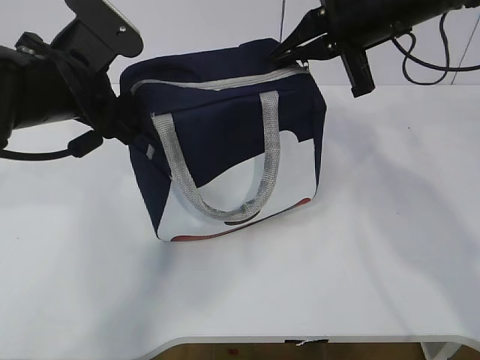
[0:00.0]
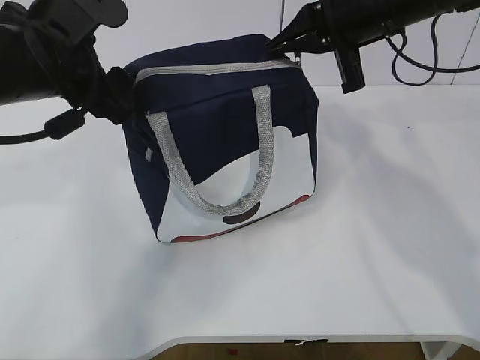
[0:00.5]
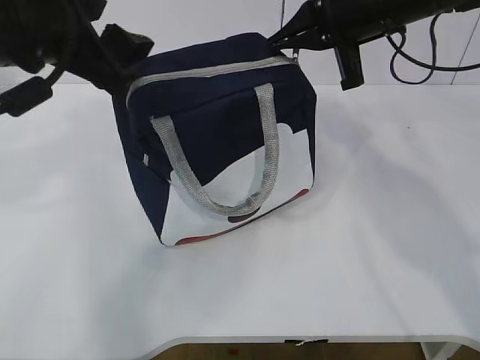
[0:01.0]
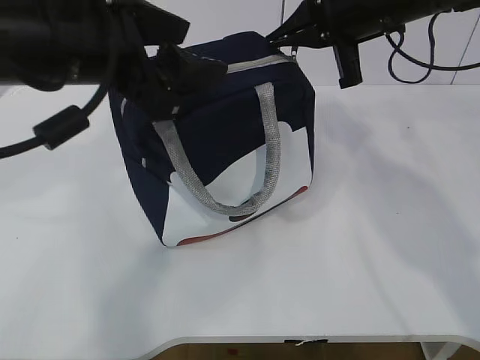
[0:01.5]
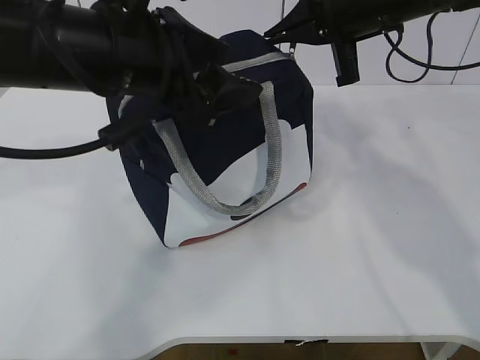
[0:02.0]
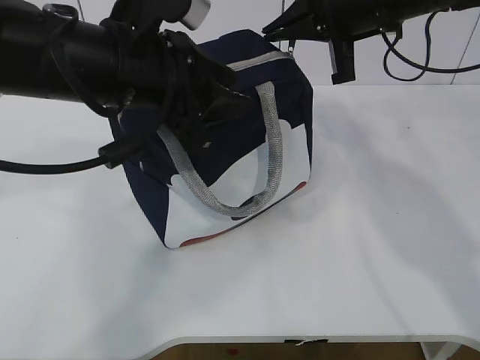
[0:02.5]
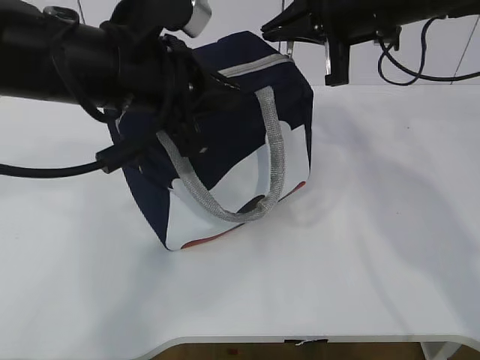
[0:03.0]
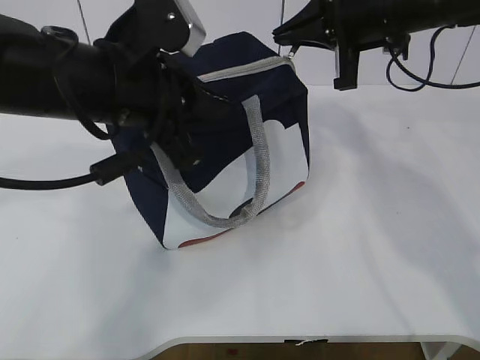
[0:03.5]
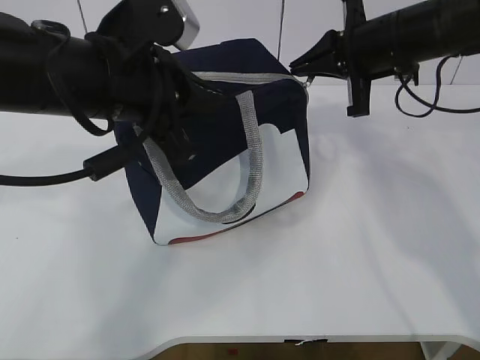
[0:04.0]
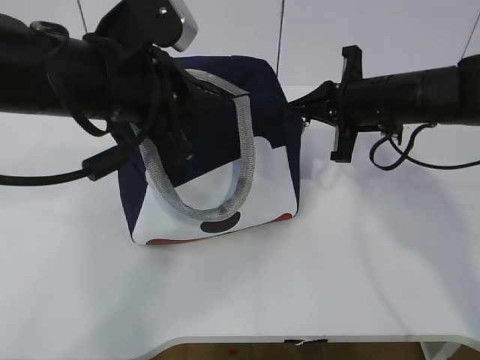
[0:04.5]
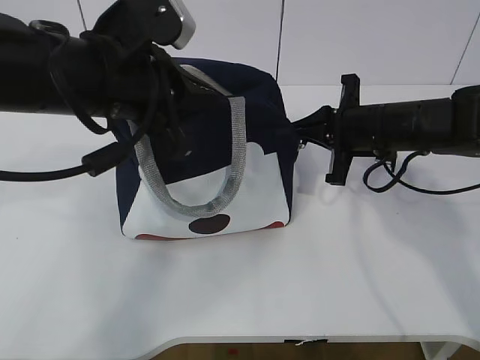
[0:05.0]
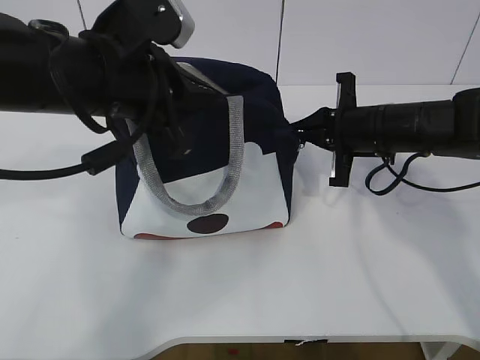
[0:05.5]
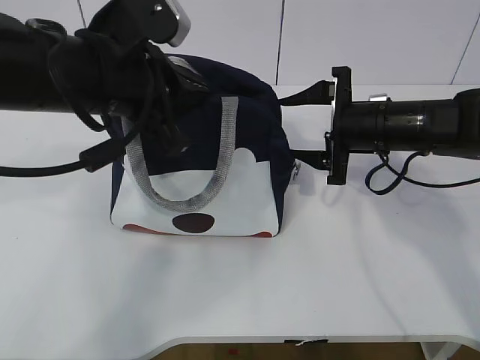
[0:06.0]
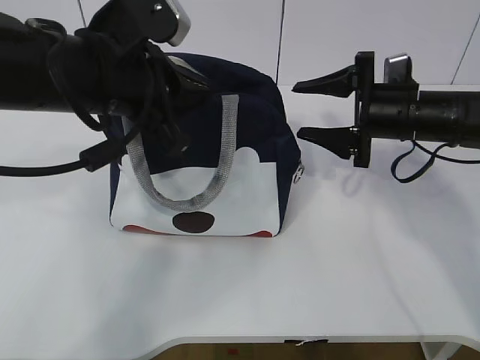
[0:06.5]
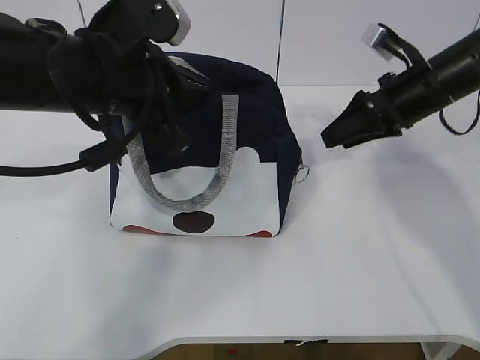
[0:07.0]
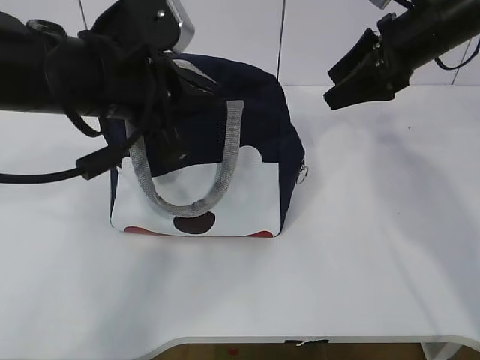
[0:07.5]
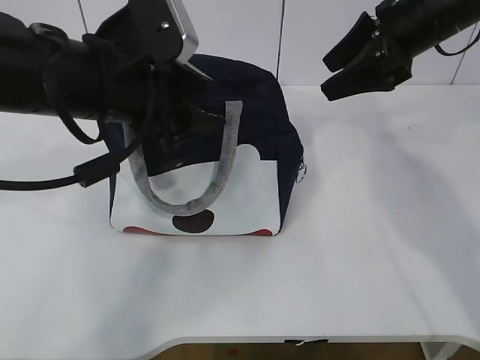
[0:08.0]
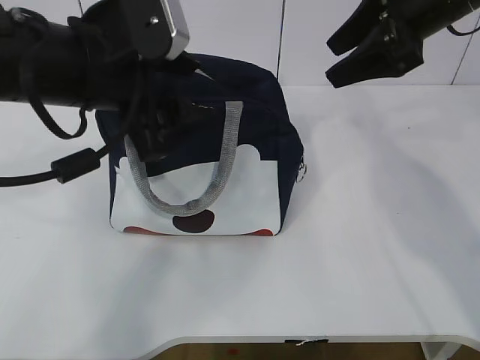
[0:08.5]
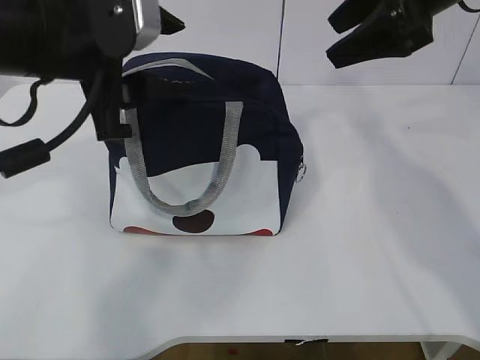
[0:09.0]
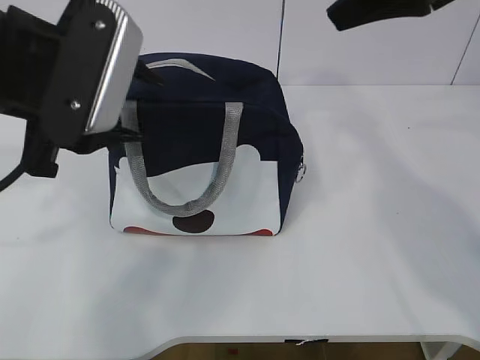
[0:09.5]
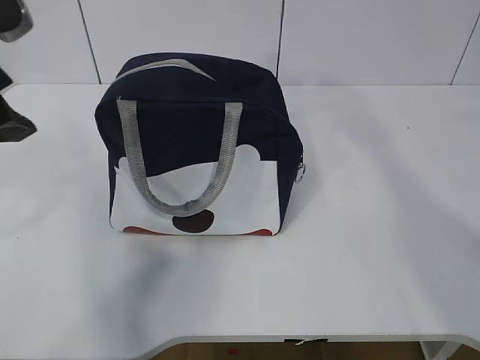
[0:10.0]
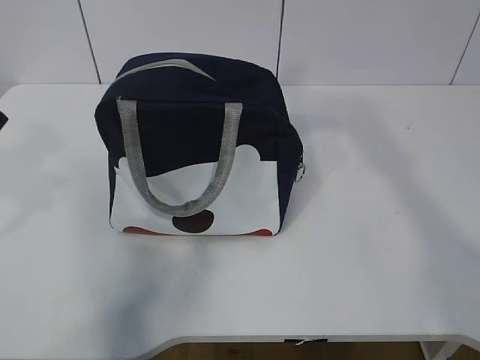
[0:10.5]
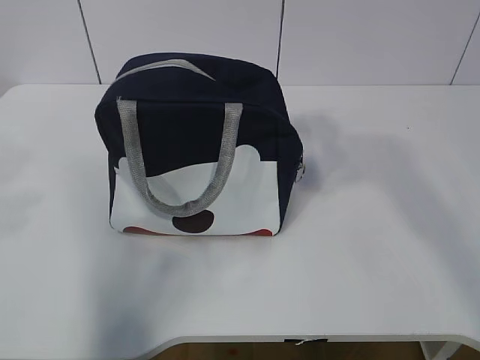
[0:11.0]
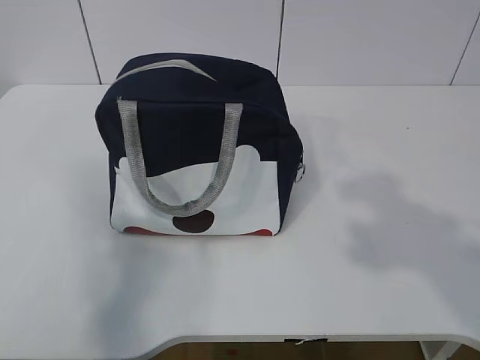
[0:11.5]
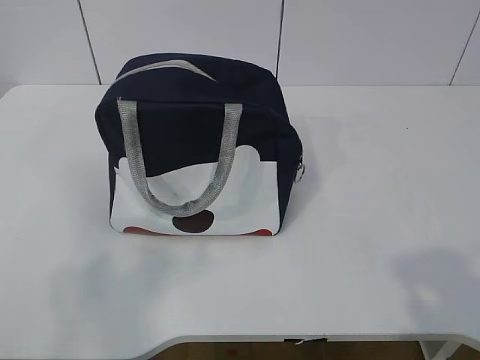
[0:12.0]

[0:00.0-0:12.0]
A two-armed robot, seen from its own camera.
Step, 0:00.0 to 0:09.5: zip up the zipper to close the bag.
0:00.0 to 0:02.0: The left gripper shifts roughly 5 cm to the right.
0:02.0 to 0:04.0: The right gripper changes place by approximately 5 cm. Meanwhile the left gripper closes.
0:04.0 to 0:06.0: The right gripper heads downward, covering approximately 10 cm, and opens up.
0:06.0 to 0:08.0: The left gripper opens its fingers. The right gripper is displaced upward by roughly 15 cm.
0:08.0 to 0:10.0: The right gripper moves upward and backward, some 20 cm. Meanwhile the left gripper travels to the left, upward and backward by about 10 cm.
0:10.0 to 0:12.0: The left gripper travels backward and to the left by about 25 cm, while the right gripper shifts roughly 30 cm backward and downward.

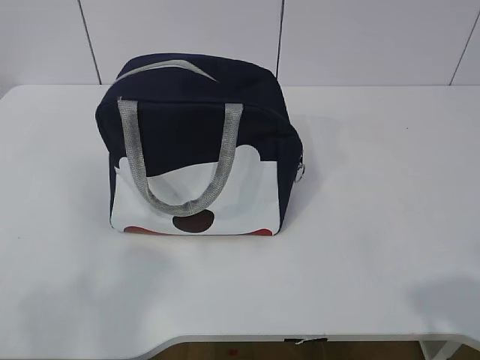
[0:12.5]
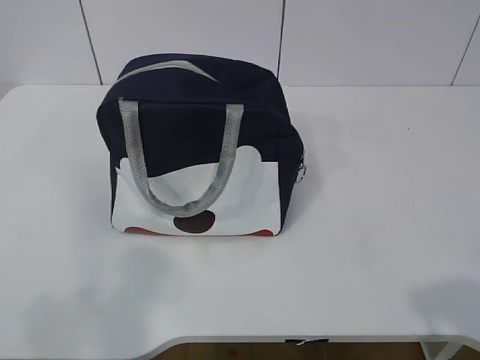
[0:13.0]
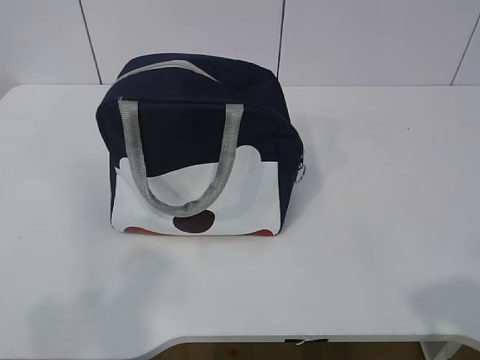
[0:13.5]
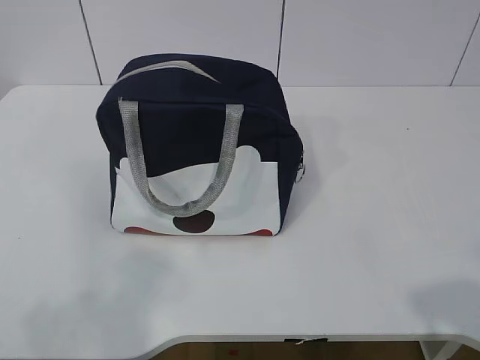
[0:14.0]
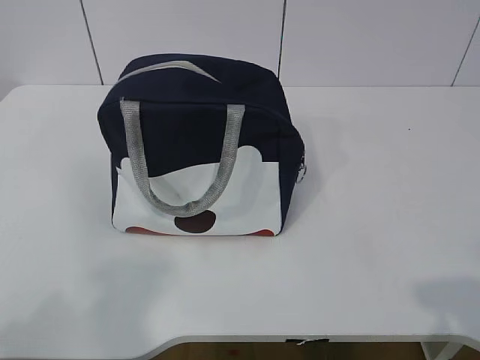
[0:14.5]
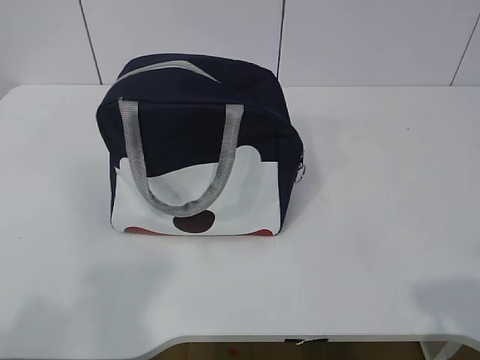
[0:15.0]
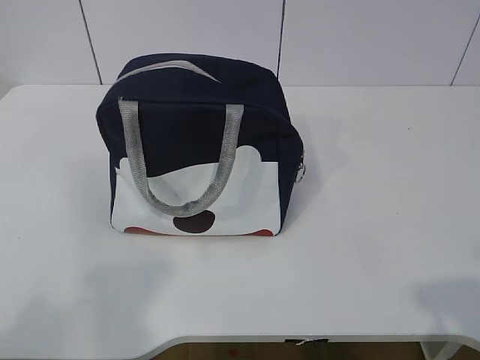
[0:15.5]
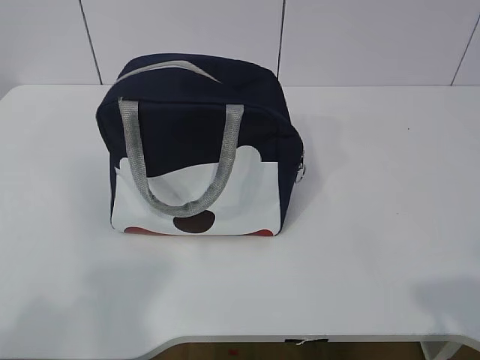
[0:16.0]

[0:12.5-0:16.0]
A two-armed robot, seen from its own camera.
0:12.5 to 0:14.5: The grippers make only small movements.
0:14.5 to 0:16.0: The grippers stay close to where they were, moving slightly.

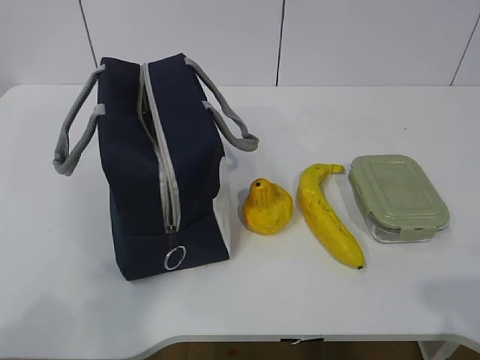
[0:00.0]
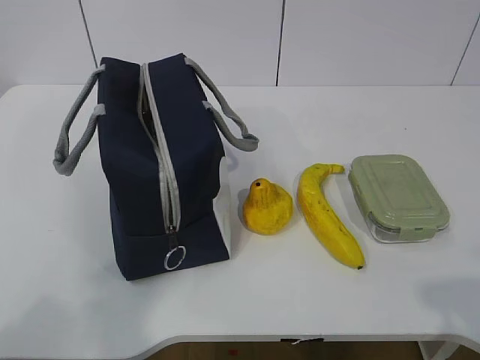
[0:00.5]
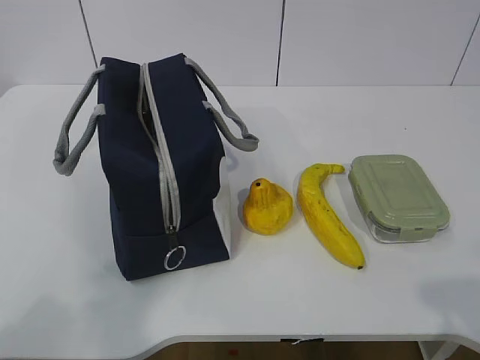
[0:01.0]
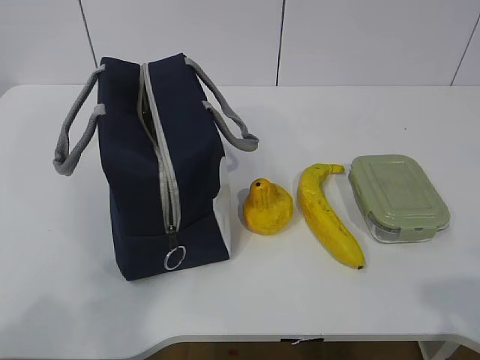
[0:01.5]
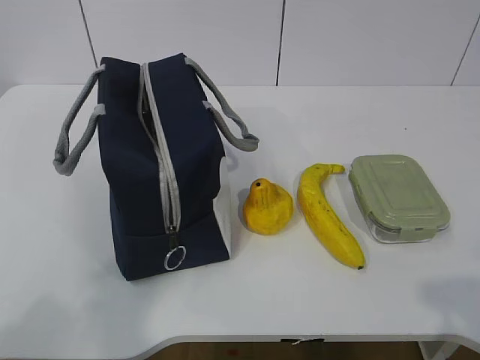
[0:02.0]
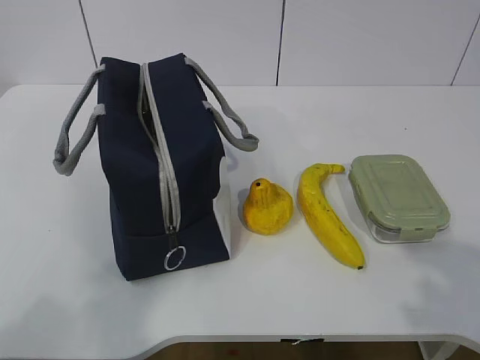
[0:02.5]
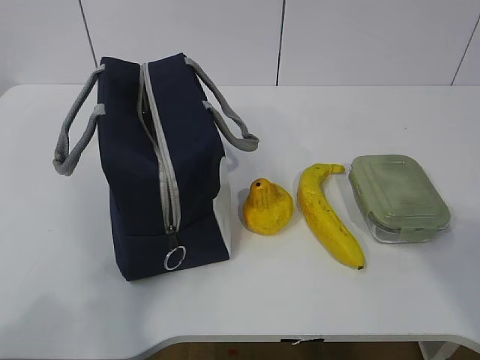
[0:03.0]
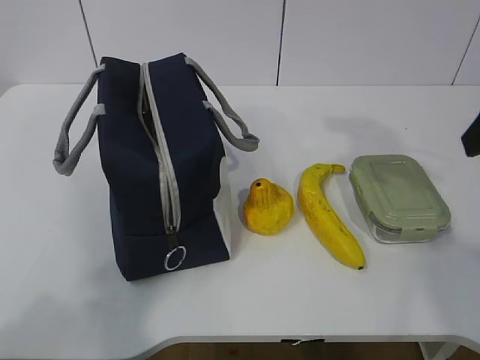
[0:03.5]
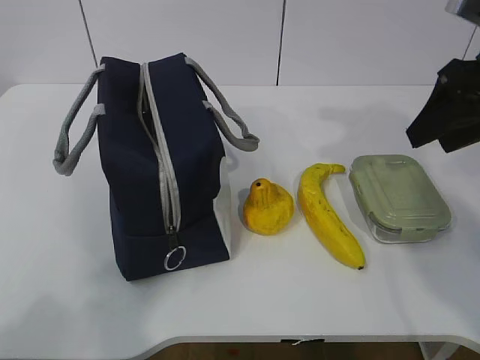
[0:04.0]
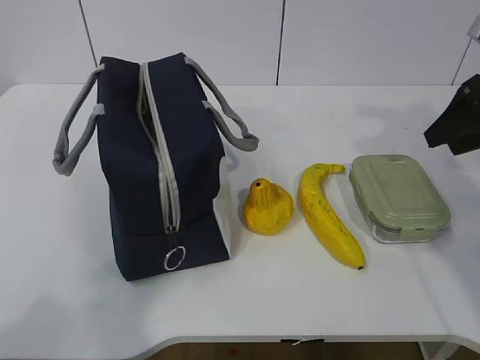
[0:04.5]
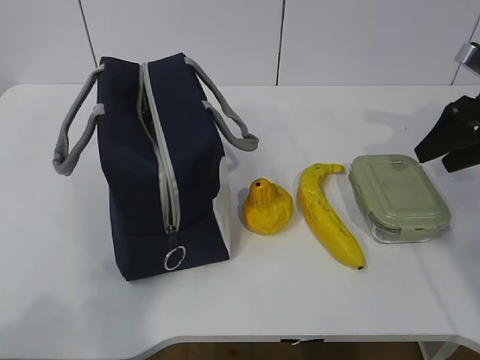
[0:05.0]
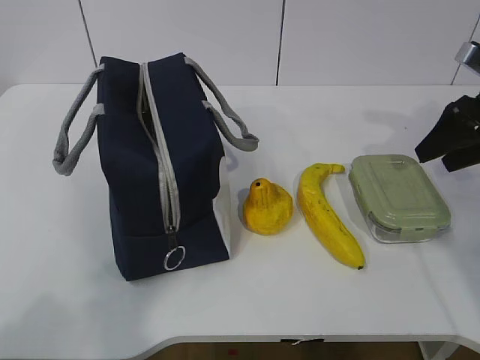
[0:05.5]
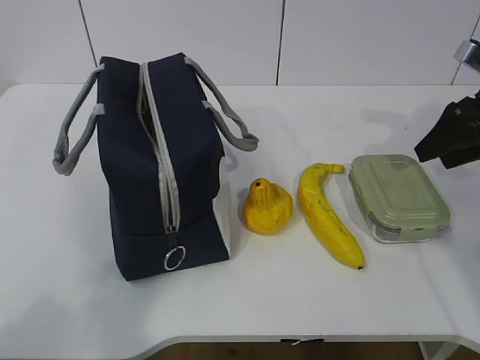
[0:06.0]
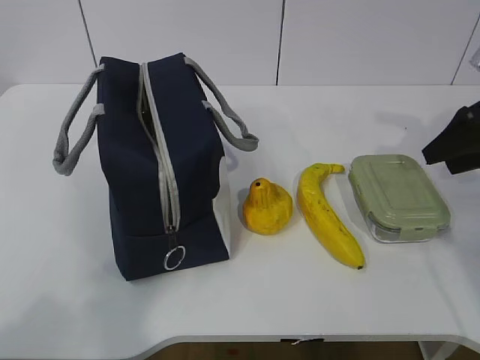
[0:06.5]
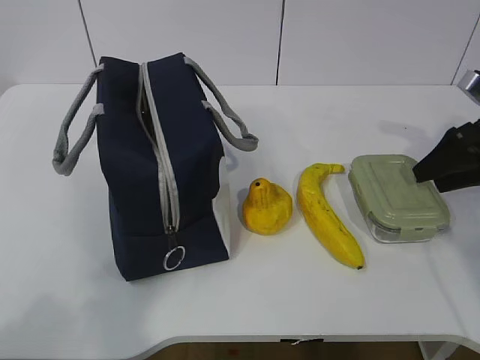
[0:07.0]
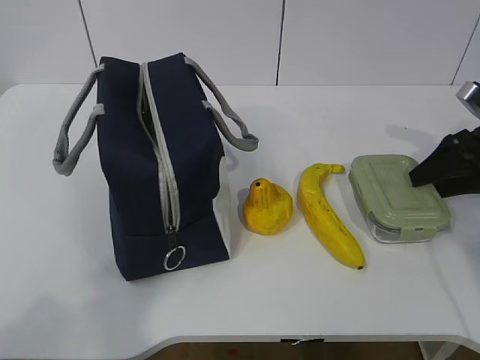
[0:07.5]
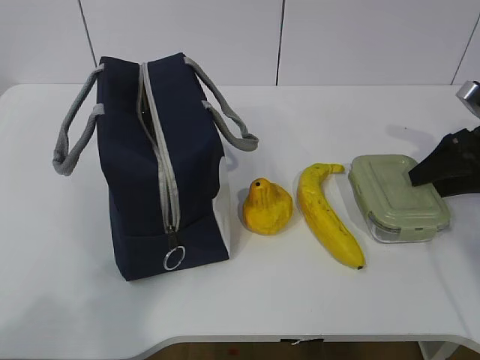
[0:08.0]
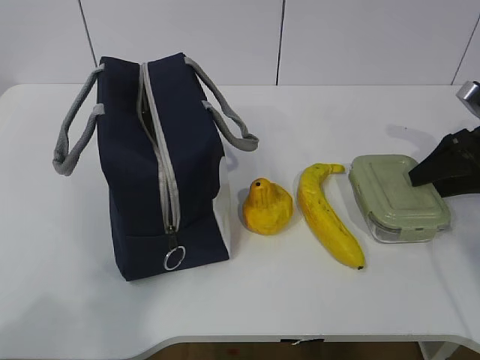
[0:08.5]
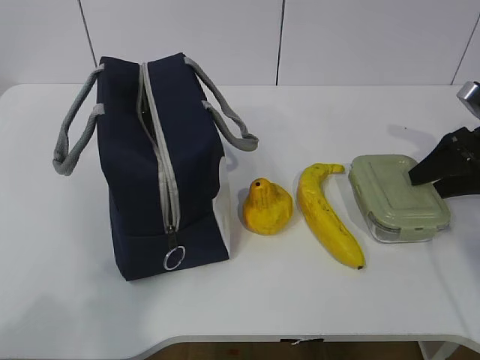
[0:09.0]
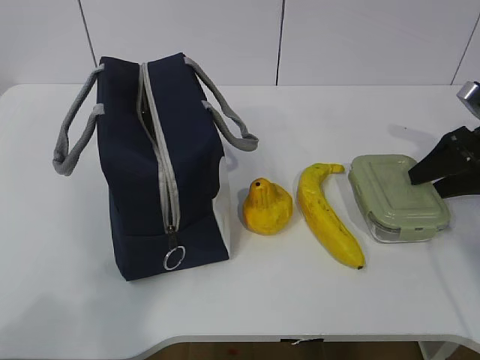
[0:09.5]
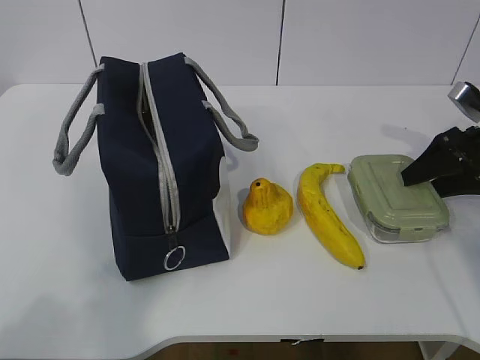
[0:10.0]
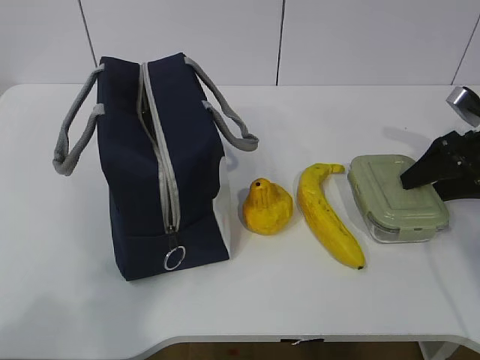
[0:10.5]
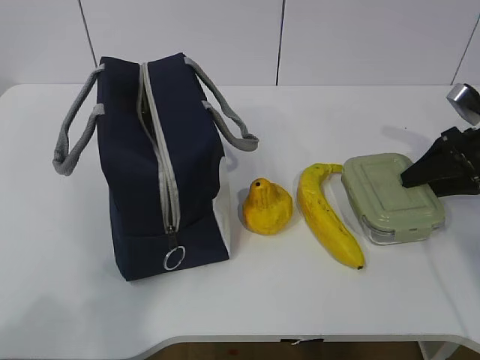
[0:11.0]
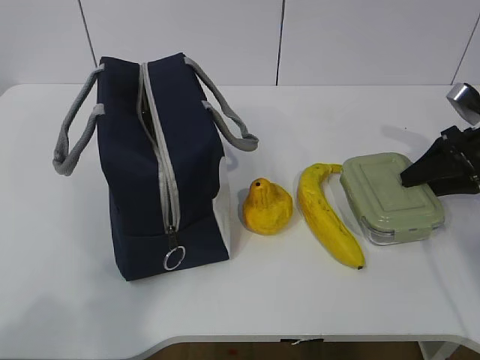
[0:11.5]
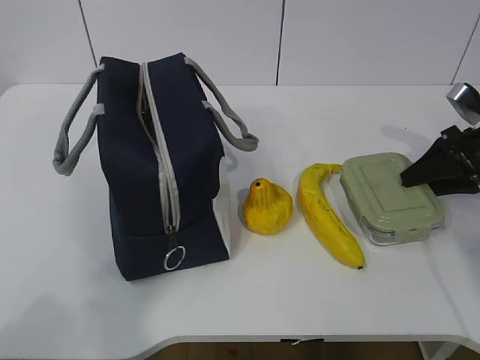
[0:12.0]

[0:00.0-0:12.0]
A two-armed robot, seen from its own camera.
Step, 0:00.0 to 0:09.0: Grab the lunch box with your right hand.
0:02.0 to 0:04.0: The right gripper heads forward, covering some 35 cm.
0:04.0 to 0:06.0: The right gripper moves downward, to the right and forward, roughly 15 cm.
0:06.0 to 0:08.0: The right gripper heads downward, covering about 5 cm.
0:08.0 to 0:12.0: Both grippers stay put.
